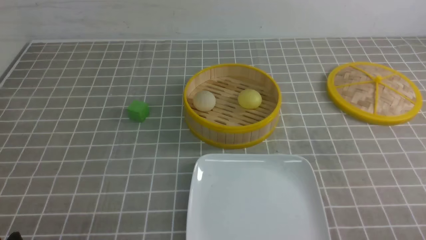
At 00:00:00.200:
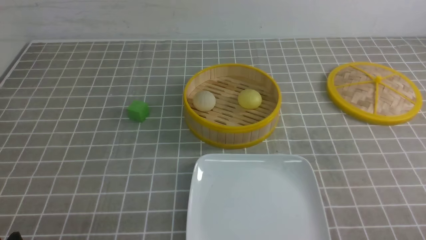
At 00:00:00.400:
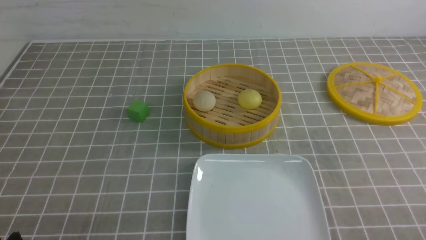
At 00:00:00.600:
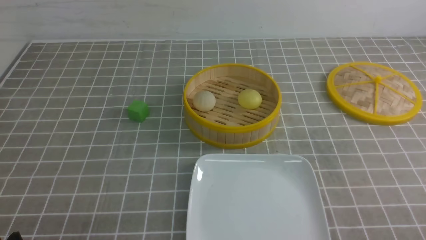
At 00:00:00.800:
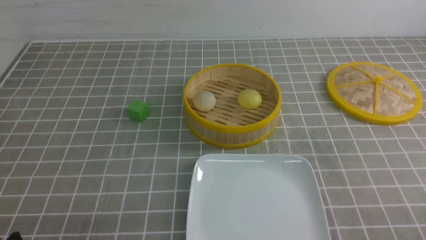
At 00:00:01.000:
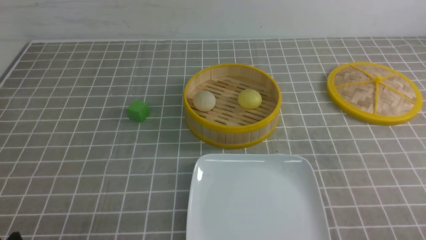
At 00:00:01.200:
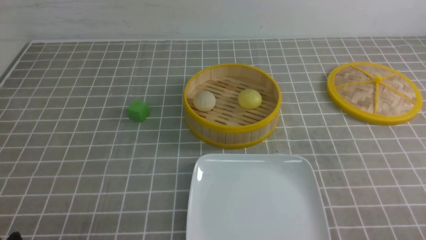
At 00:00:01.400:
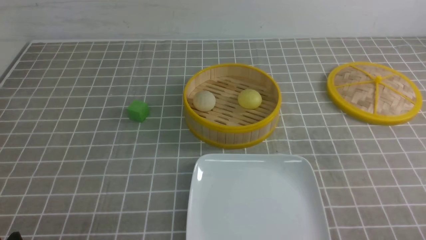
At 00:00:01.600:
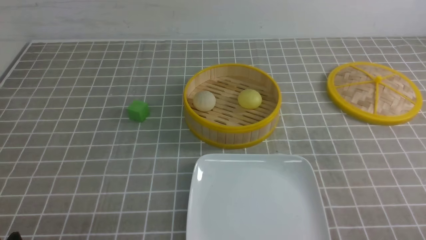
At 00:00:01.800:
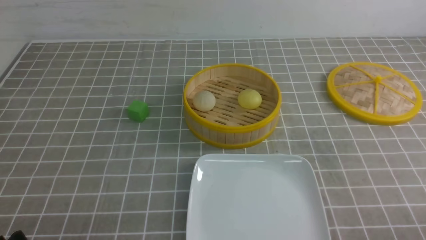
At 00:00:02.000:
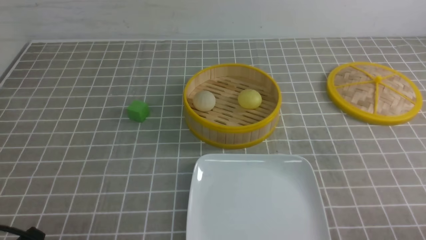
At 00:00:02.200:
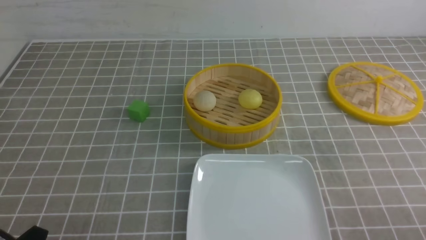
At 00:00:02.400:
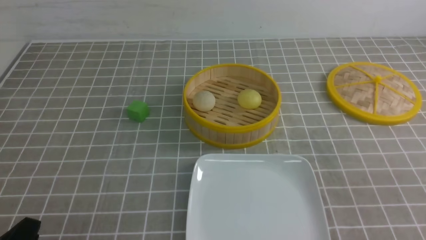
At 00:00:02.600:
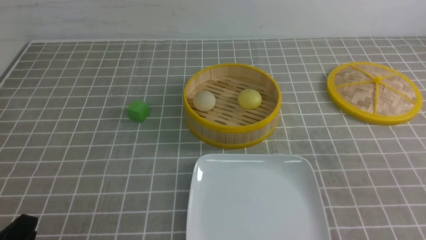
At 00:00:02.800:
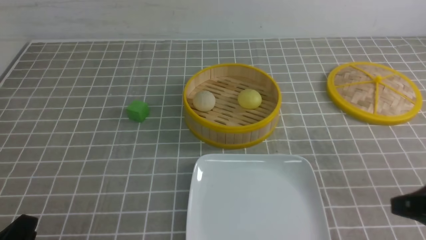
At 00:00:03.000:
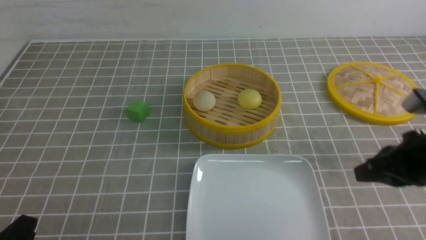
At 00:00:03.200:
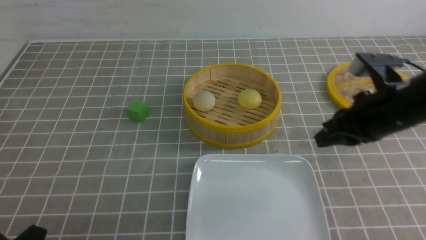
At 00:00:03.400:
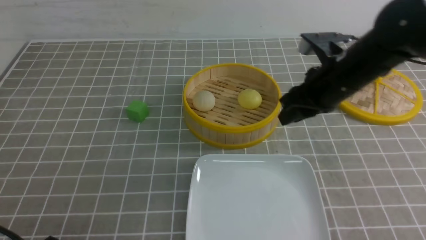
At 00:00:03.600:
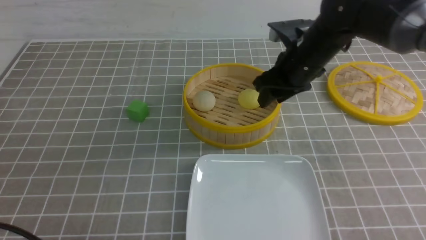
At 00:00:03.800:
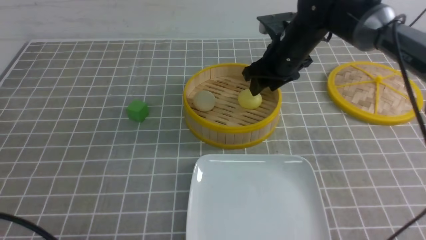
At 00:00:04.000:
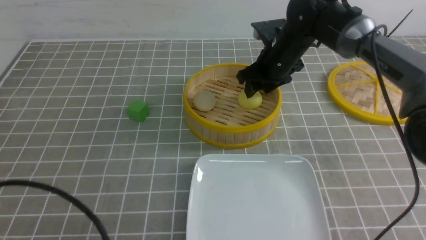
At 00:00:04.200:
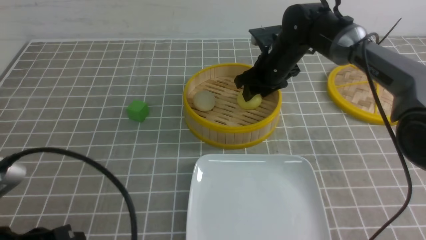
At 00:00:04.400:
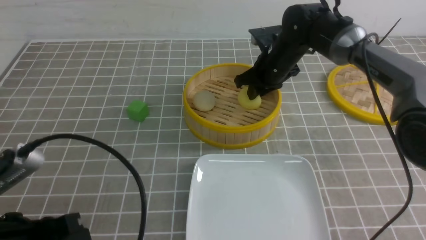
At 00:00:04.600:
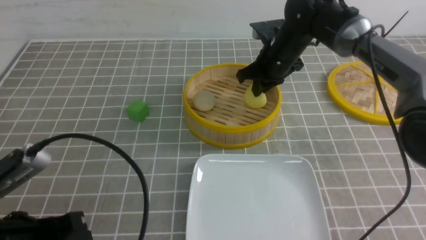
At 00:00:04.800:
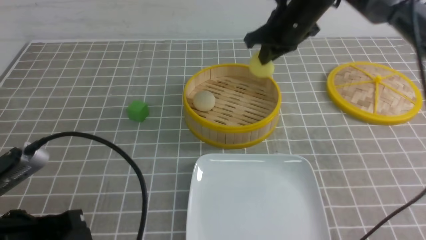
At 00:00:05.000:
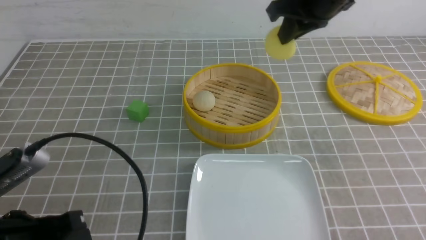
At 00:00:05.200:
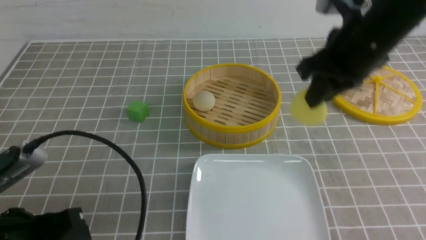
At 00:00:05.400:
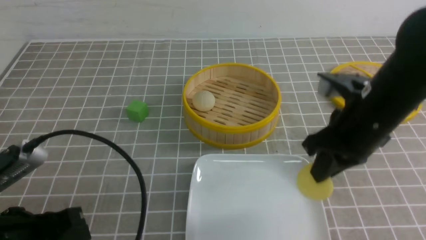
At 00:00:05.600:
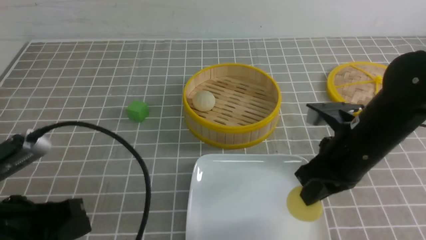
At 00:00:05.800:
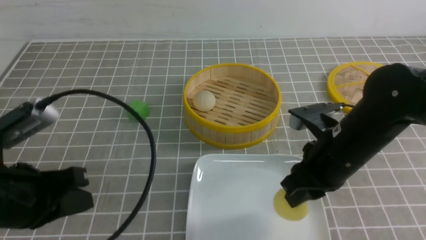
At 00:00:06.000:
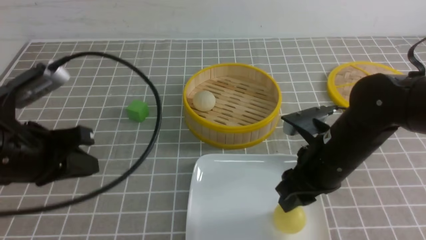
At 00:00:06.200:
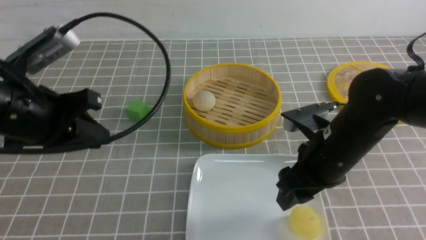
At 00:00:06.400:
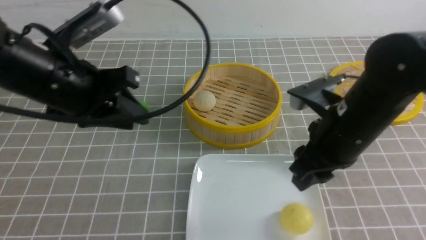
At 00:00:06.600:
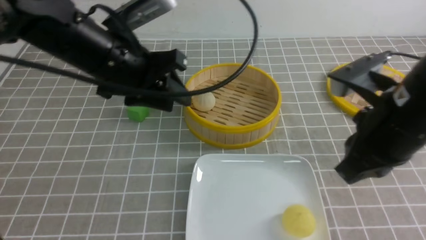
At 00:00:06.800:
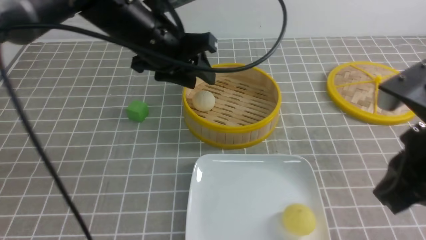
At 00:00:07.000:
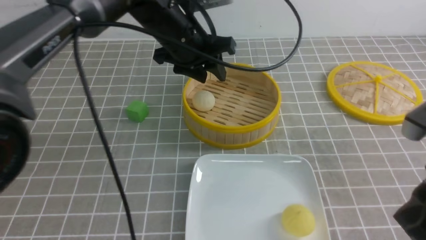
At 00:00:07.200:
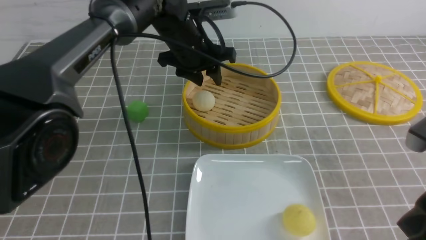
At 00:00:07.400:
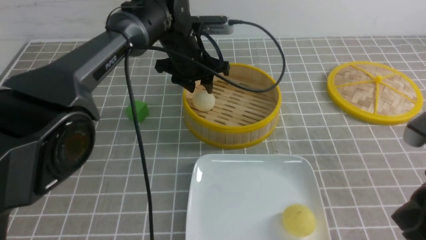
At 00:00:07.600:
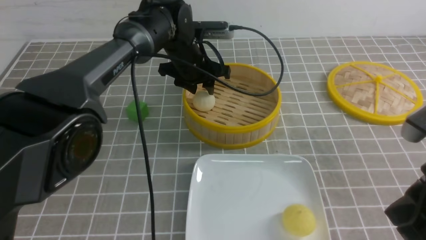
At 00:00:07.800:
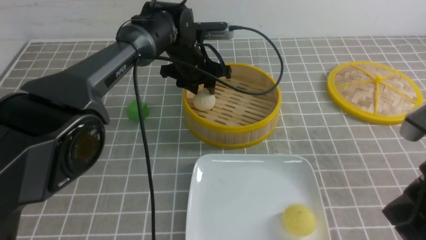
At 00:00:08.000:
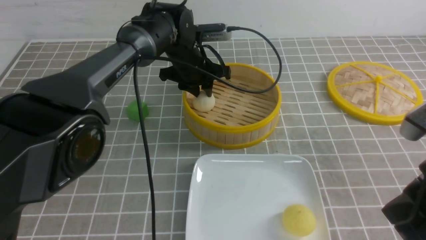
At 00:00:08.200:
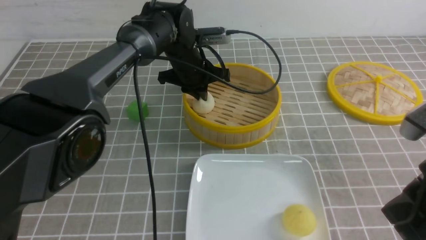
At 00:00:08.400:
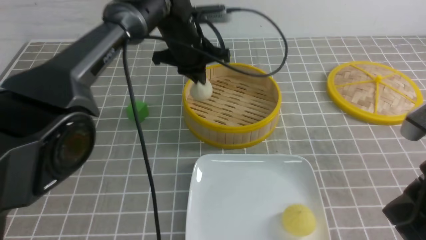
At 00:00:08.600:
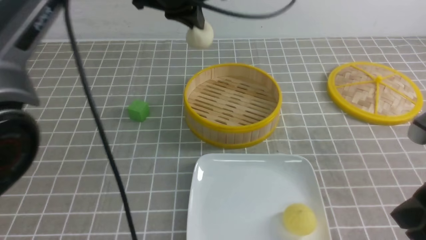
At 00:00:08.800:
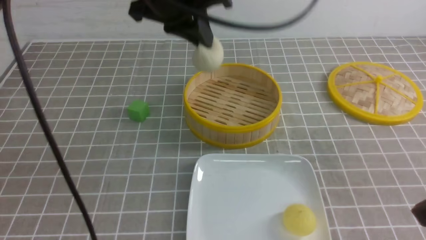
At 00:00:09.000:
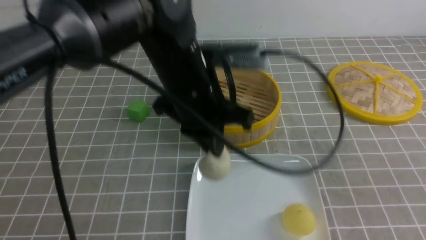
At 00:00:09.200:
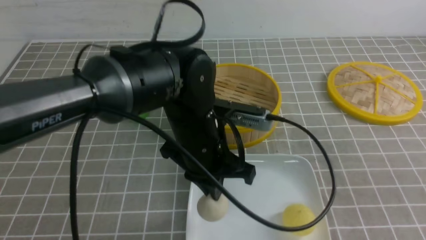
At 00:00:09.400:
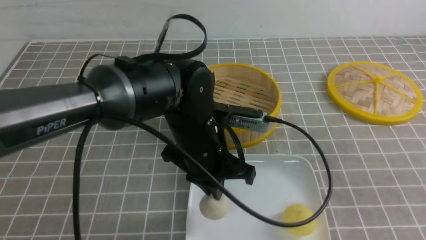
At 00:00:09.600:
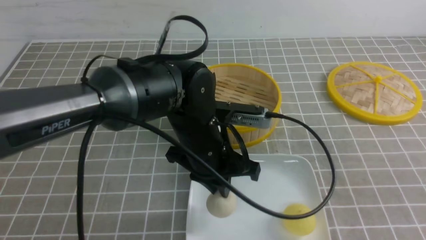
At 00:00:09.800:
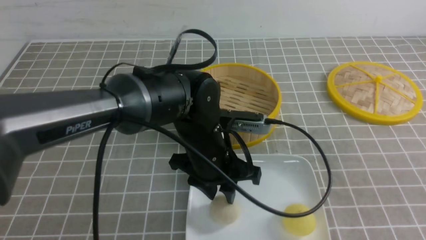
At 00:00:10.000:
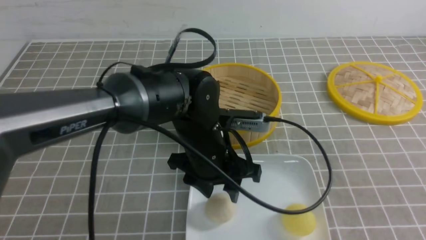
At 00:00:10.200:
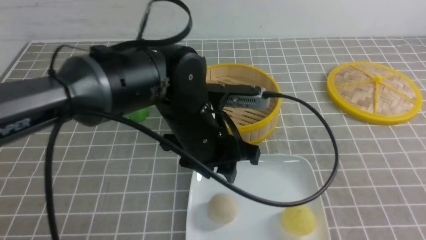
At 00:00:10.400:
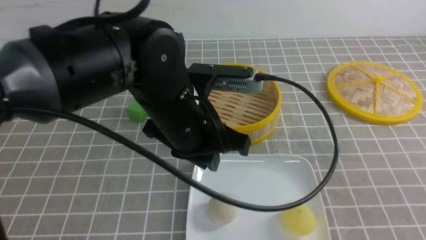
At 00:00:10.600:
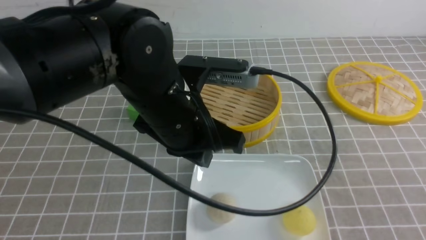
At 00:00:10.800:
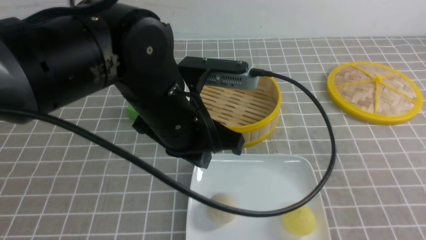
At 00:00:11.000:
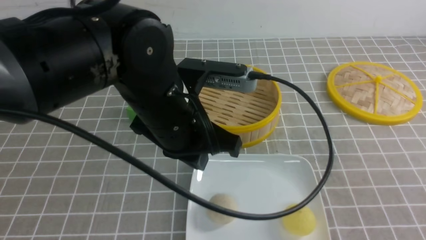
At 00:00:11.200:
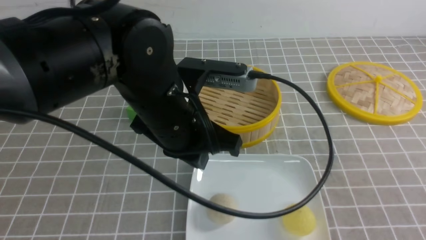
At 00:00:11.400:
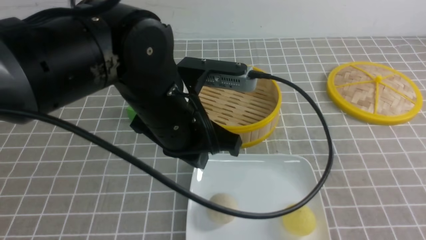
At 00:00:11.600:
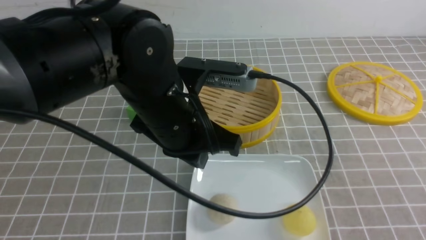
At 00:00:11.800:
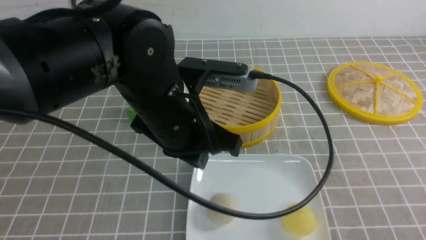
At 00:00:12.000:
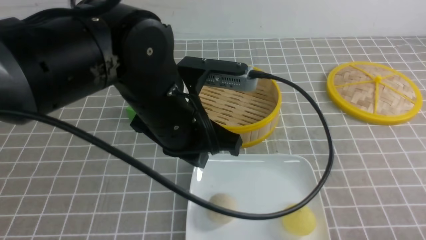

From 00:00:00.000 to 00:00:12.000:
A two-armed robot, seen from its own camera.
Step, from 00:00:00.000 to 00:00:04.600: use the right arm to grab the steamed stuffed bun that is closest to it.
Step, from 00:00:04.800 to 00:00:05.800: use the right arm to put the steamed stuffed bun into the plate.
Step, from 00:00:06.000 to 00:00:08.200: use the left arm to grab the steamed stuffed bun that is closest to it.
Step, from 00:00:08.400 to 00:00:09.600: use the left arm to put the steamed stuffed bun into the plate.
From 00:00:01.600 to 00:00:03.000: The right gripper moves forward, upward and to the left, about 20 cm, and closes up.
From 00:00:03.000 to 00:00:04.400: The right gripper shifts roughly 30 cm forward and to the left, and opens, then closes again. Meanwhile the left gripper travels upward by some 5 cm, and closes up.
From 00:00:04.400 to 00:00:06.000: The left gripper heads forward and upward, covering some 10 cm. The right gripper travels backward by roughly 20 cm, and opens its fingers.
From 00:00:06.000 to 00:00:07.600: The right gripper goes approximately 15 cm backward, upward and to the right, and closes. The left gripper travels forward and to the right by some 30 cm, and opens its fingers.
From 00:00:07.600 to 00:00:09.000: The right gripper travels backward by approximately 5 cm. Meanwhile the left gripper shifts roughly 20 cm backward and upward, and closes.
From 00:00:09.000 to 00:00:10.400: The left gripper goes some 5 cm backward, travels downward and back again, about 10 cm each way, and opens, then closes once more. Meanwhile the right gripper changes place by approximately 5 cm.
From 00:00:10.400 to 00:00:12.000: The right gripper shifts about 10 cm downward.

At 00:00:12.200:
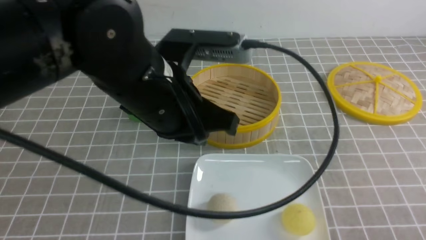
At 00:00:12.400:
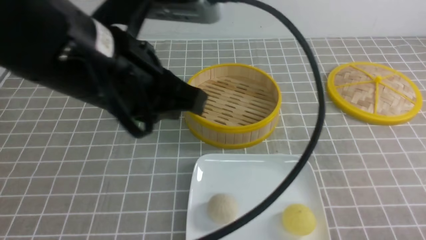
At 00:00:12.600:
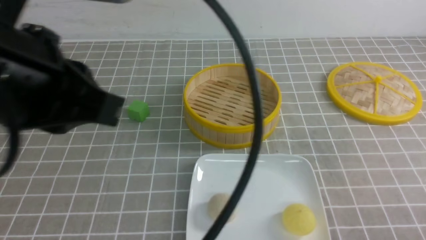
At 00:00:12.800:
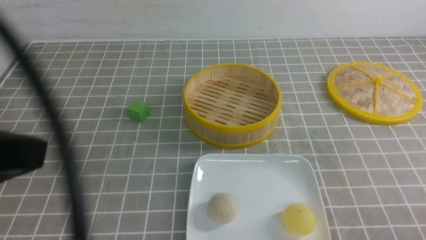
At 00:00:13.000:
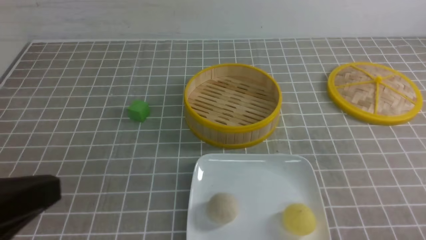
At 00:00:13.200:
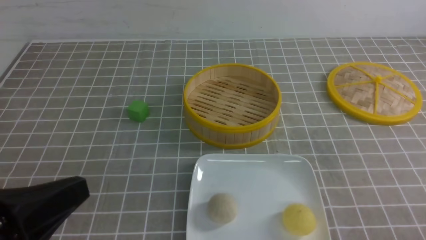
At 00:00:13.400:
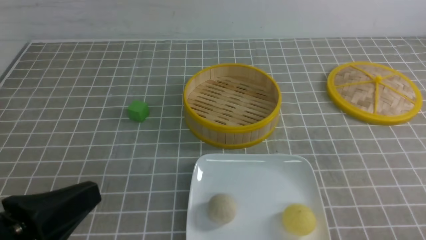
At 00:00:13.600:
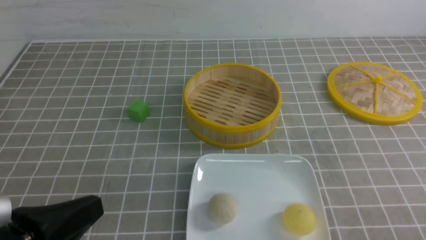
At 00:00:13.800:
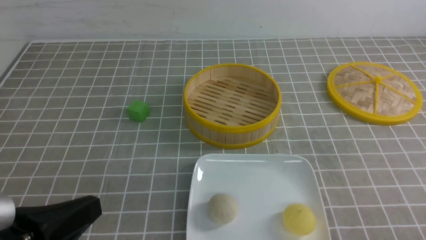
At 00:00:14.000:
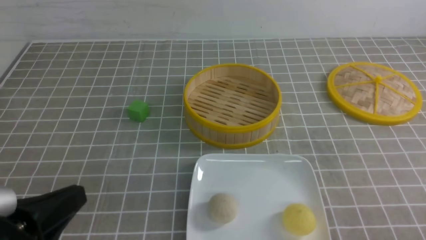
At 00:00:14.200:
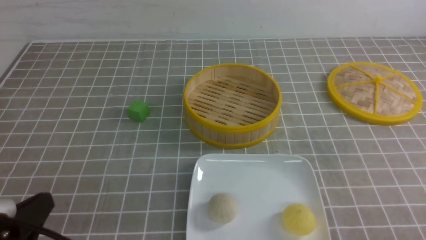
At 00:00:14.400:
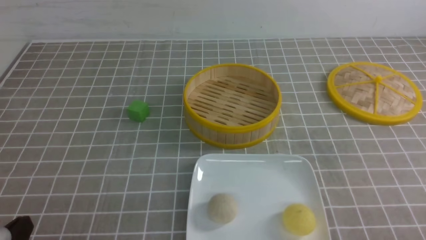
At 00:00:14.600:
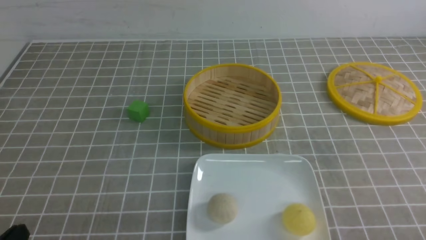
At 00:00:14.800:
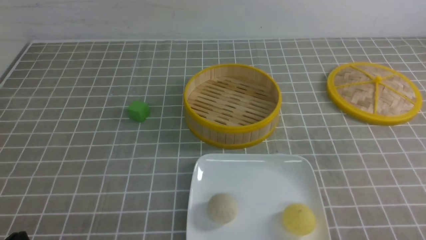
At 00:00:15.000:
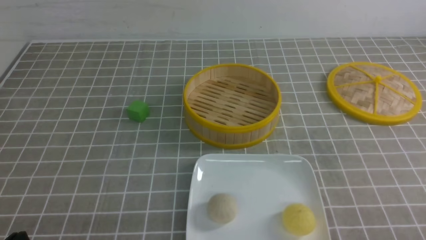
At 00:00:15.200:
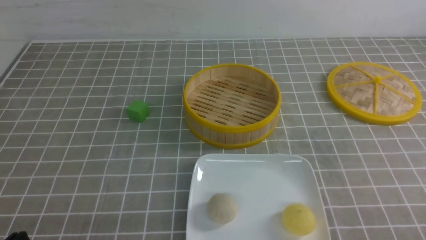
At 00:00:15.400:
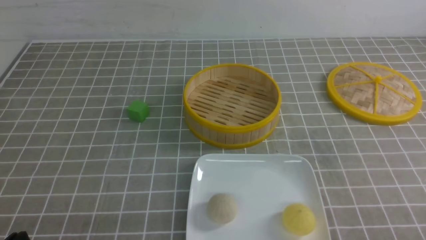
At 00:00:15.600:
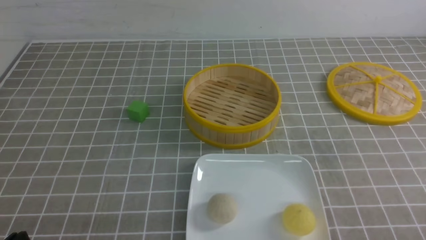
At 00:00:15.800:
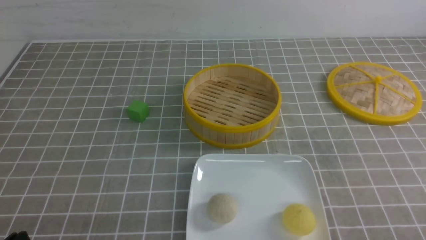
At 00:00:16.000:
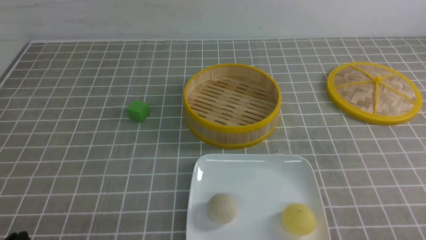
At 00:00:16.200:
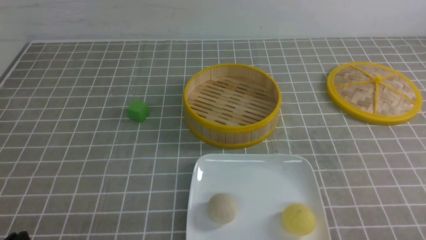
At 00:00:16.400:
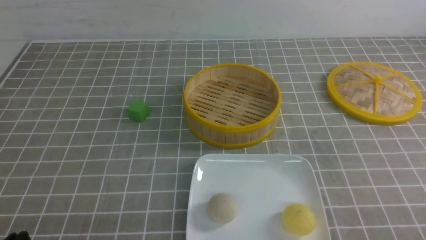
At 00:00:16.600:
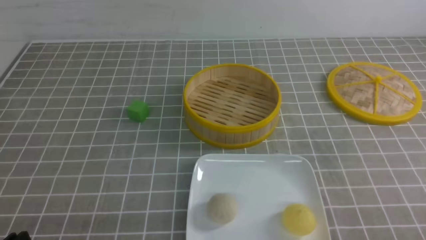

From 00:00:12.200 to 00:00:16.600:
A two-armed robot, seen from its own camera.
From 00:00:12.200 to 00:00:13.600: The left gripper travels backward, to the left and downward by about 20 cm.
From 00:00:13.600 to 00:00:15.200: The left gripper moves downward and to the left, roughly 15 cm.
From 00:00:15.200 to 00:00:16.600: Neither gripper changes place.
